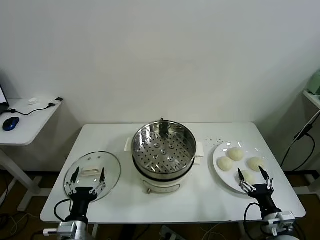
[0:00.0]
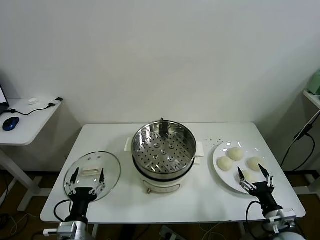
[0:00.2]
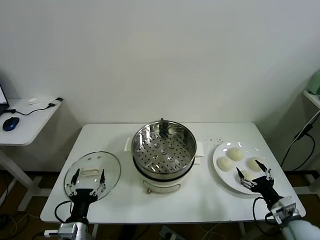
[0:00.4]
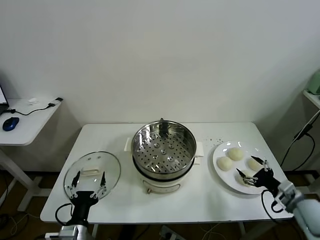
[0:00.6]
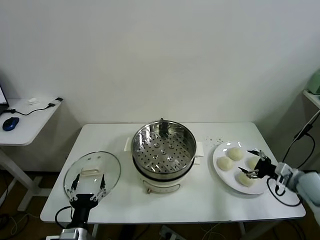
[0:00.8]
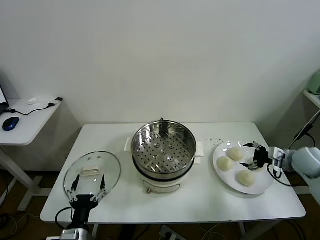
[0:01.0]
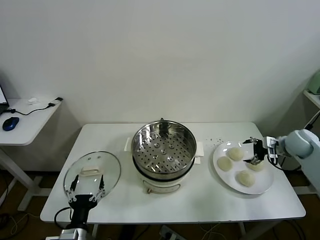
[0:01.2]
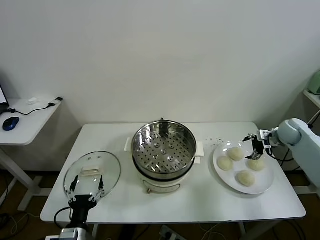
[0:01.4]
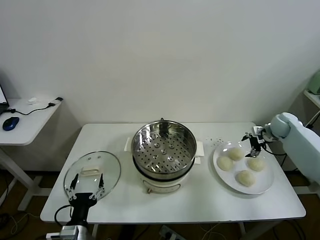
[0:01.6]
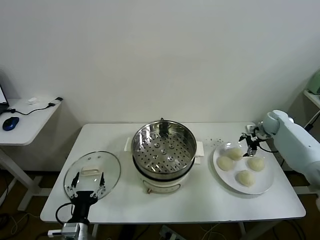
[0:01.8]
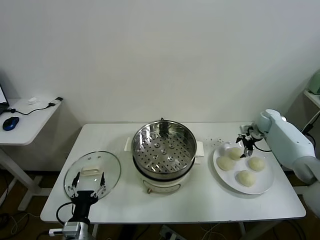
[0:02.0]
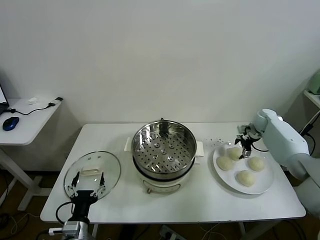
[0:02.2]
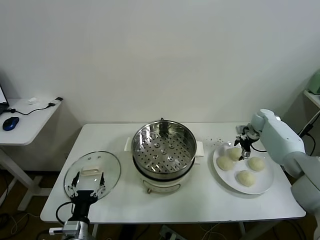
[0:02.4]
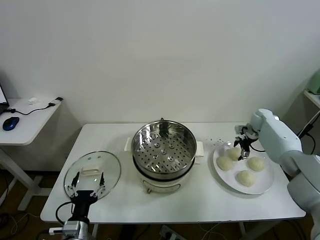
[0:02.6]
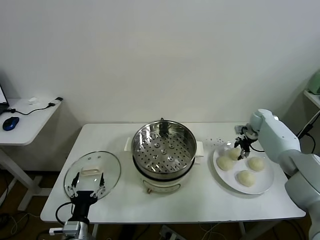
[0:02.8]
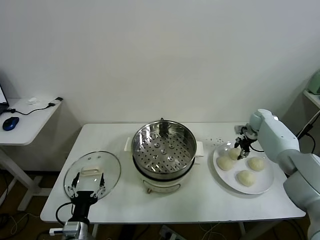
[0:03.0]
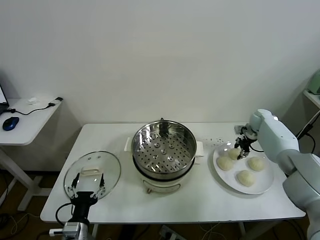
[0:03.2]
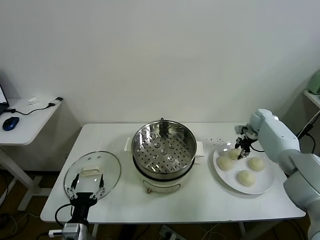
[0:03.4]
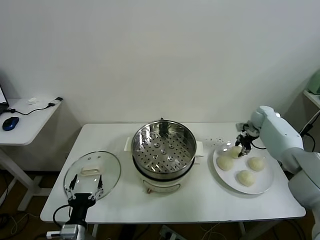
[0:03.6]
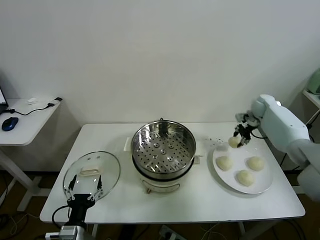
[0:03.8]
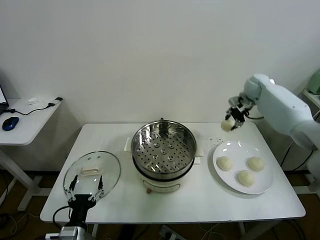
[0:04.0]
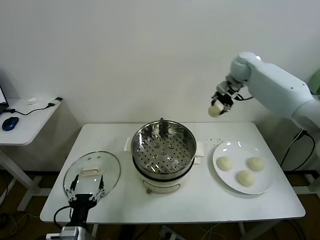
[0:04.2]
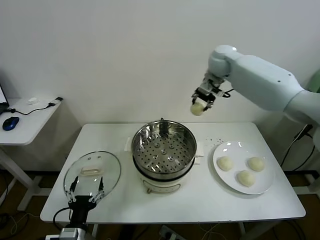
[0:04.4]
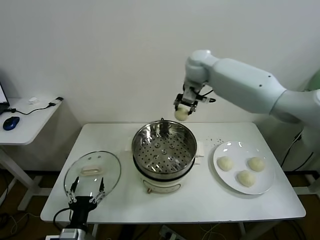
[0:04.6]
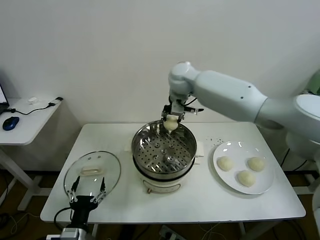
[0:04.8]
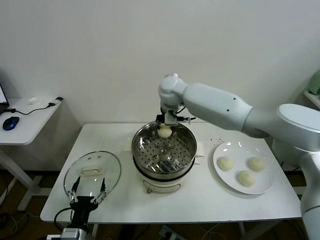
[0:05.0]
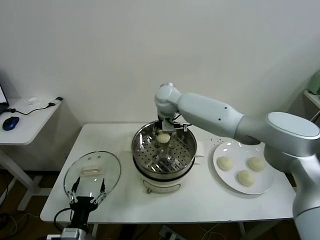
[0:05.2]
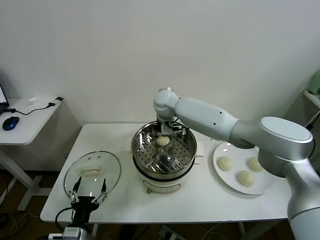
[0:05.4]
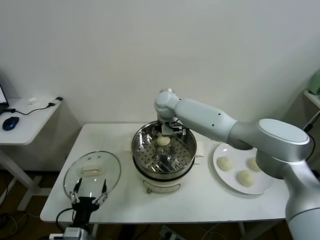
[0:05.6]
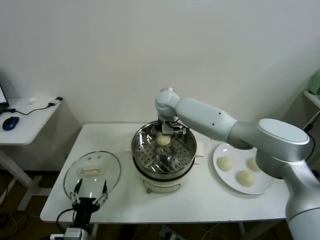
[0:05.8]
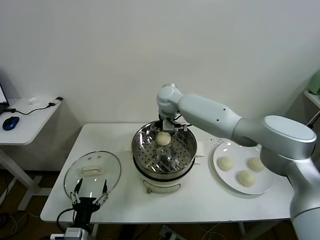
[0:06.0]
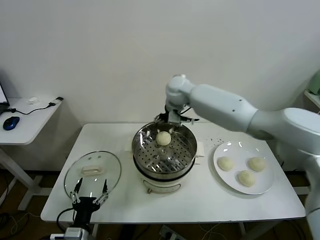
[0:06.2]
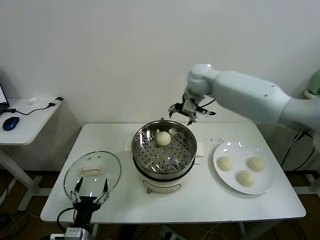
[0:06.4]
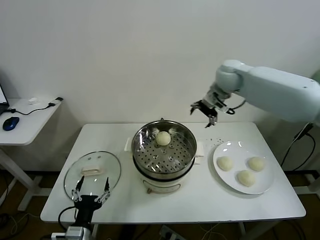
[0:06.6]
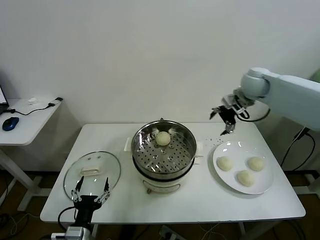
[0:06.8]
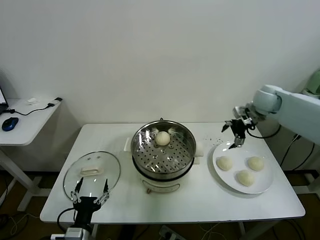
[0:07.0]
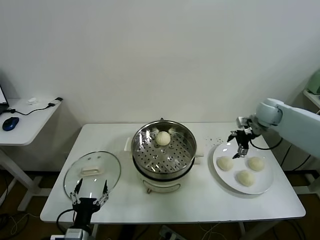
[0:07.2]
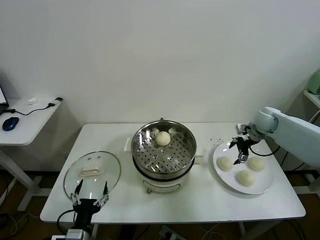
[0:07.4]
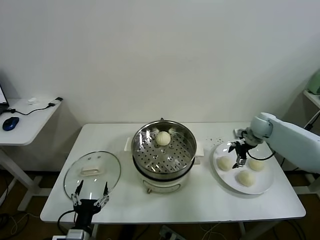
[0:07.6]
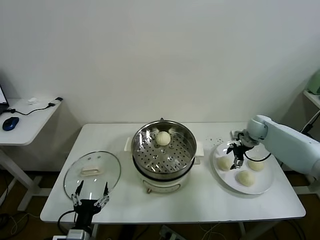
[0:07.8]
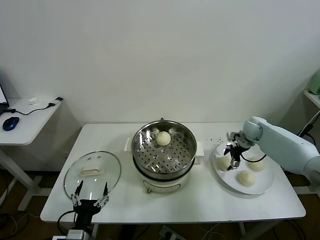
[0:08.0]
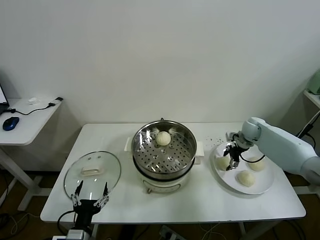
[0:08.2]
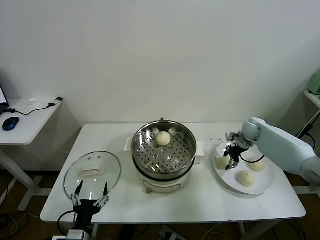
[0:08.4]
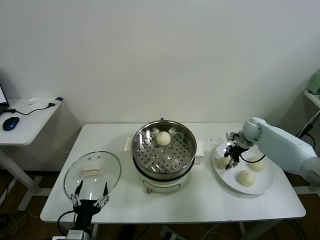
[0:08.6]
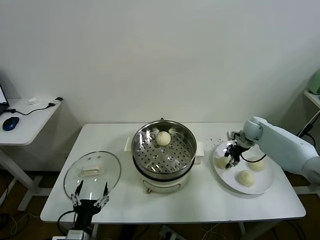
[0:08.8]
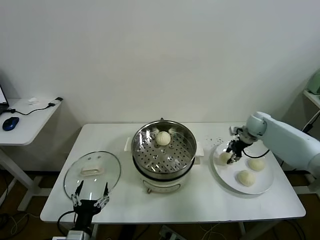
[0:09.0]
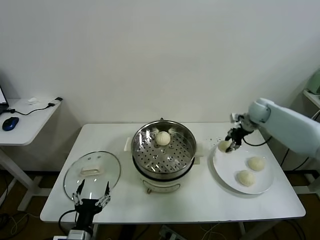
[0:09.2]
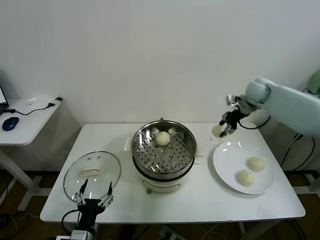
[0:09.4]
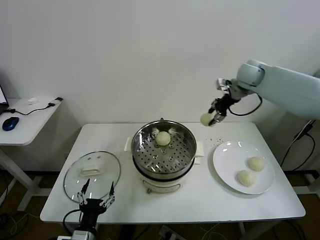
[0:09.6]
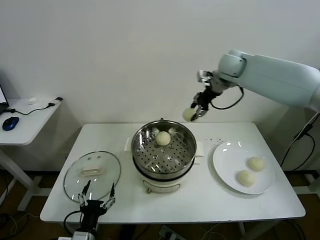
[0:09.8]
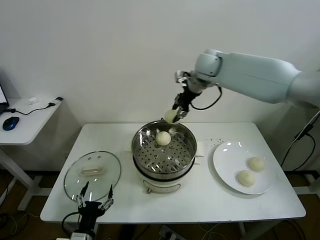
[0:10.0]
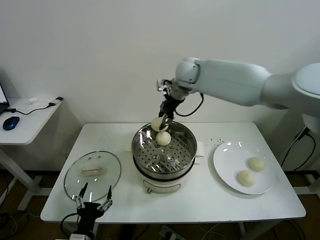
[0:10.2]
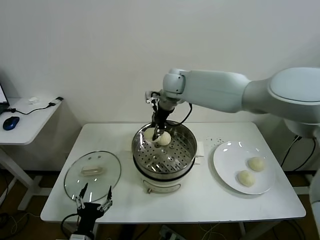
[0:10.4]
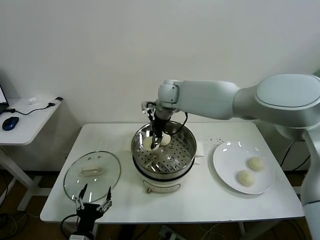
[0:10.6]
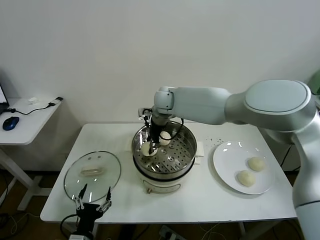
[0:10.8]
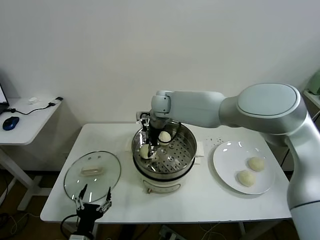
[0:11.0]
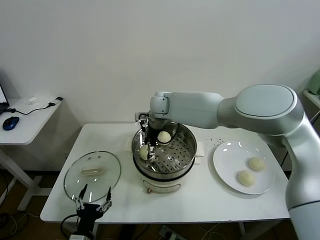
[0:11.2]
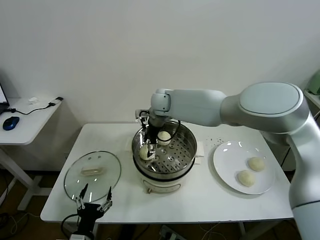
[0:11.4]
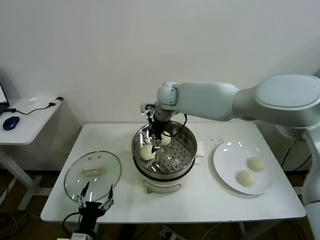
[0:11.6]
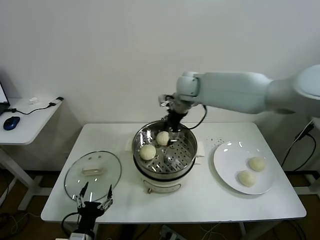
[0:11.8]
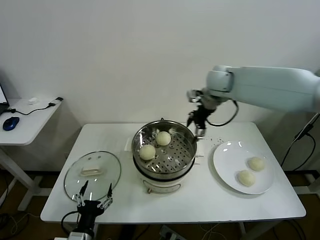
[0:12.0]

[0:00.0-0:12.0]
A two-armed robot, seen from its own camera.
Task of the whole recording: take steamed baozi put them in steamer.
Step, 0.0 to 2.8 s: Grasp the baozi in the plate with right gripper.
Step, 3.0 to 5.8 s: Place the baozi on the steamer with right gripper.
Step, 6.0 to 8.4 s: Grasp the baozi in the plate with right gripper.
Step, 8.6 to 11.4 s: Place the baozi on the steamer with right gripper.
1.6 to 3.0 s: The right gripper ends up about 5 cm from where it was, and closes up.
3.0 to 4.4 s: The right gripper is displaced to the left and upward by approximately 40 cm.
4.4 to 6.0 s: The right gripper heads to the left and downward, covering some 15 cm, and opens.
6.0 to 7.6 s: The right gripper is displaced to the right by approximately 35 cm.
7.6 to 9.0 s: The right gripper closes up.
9.0 to 10.4 s: The right gripper heads to the left and upward, covering about 40 cm.
10.4 to 12.0 s: The right gripper is displaced to the right by roughly 20 cm, and opens.

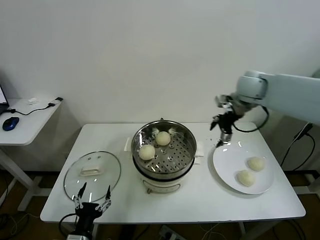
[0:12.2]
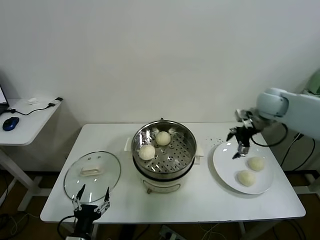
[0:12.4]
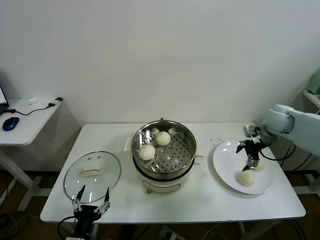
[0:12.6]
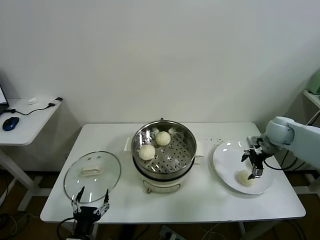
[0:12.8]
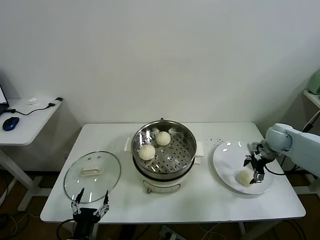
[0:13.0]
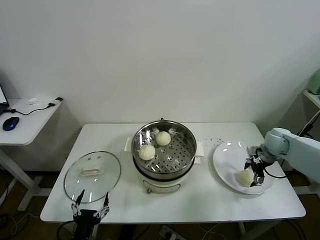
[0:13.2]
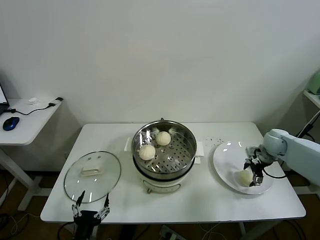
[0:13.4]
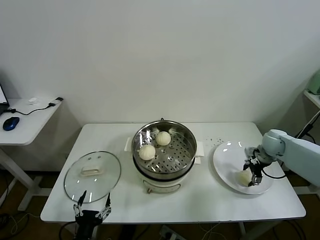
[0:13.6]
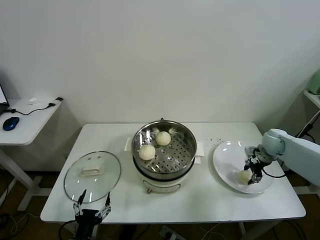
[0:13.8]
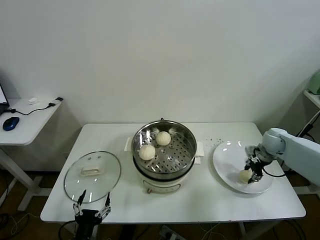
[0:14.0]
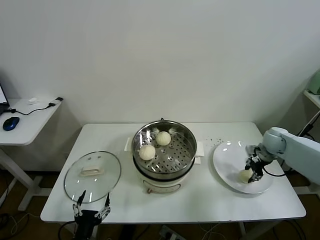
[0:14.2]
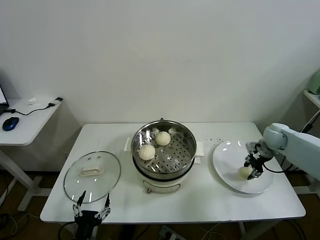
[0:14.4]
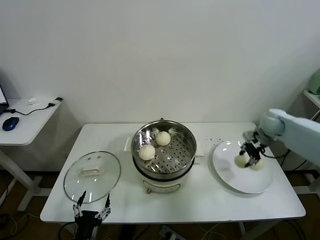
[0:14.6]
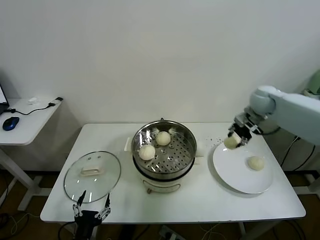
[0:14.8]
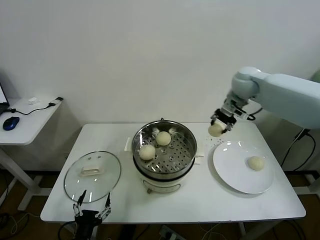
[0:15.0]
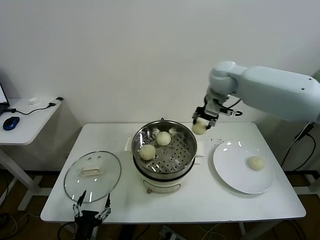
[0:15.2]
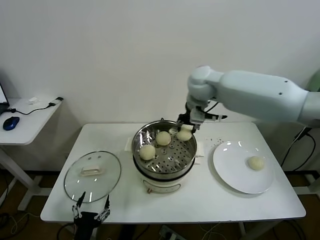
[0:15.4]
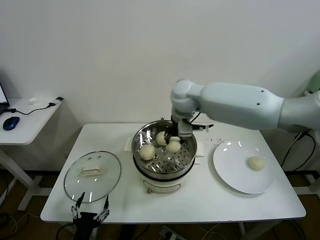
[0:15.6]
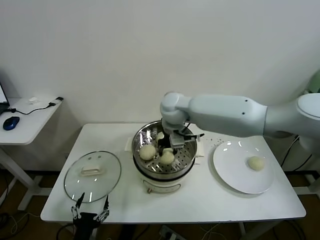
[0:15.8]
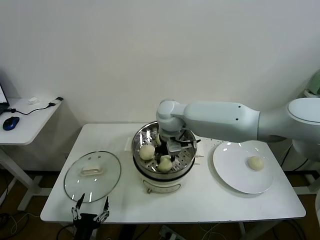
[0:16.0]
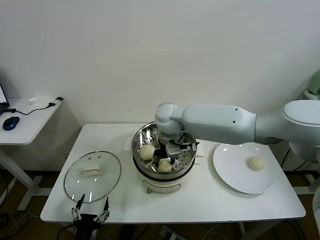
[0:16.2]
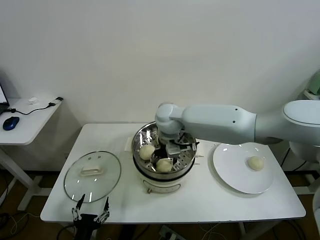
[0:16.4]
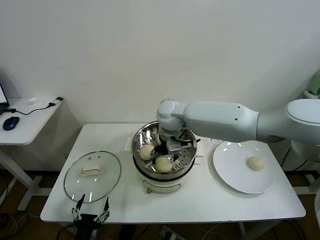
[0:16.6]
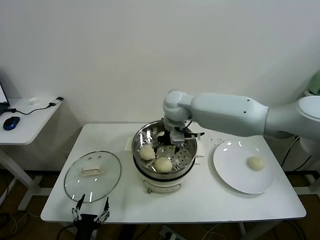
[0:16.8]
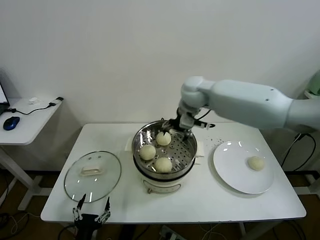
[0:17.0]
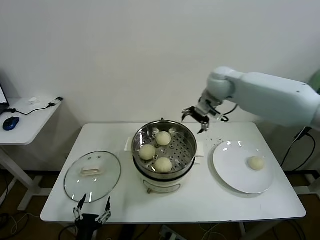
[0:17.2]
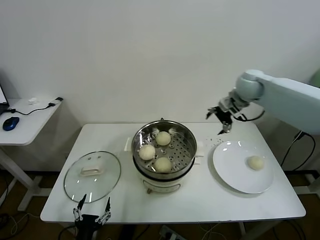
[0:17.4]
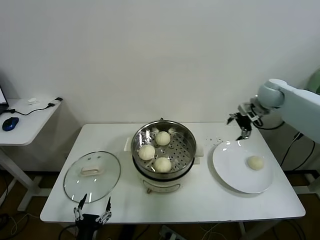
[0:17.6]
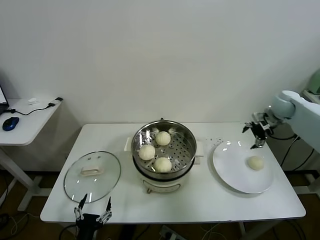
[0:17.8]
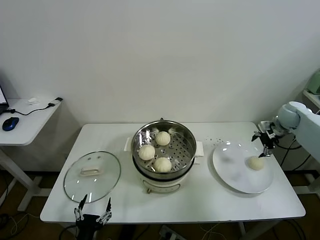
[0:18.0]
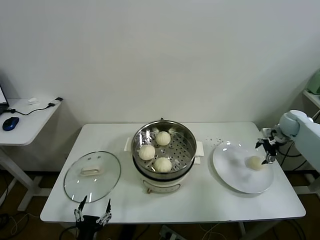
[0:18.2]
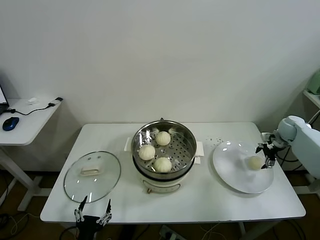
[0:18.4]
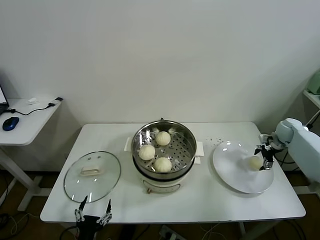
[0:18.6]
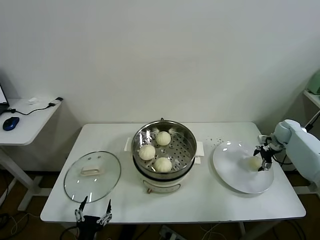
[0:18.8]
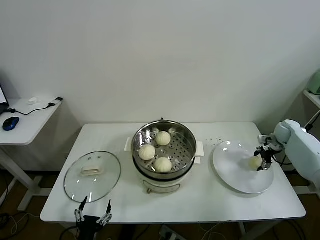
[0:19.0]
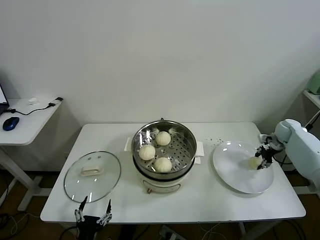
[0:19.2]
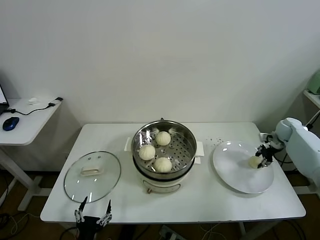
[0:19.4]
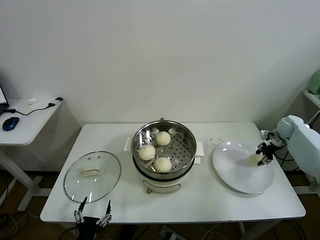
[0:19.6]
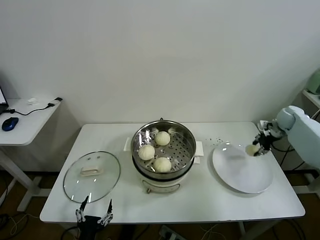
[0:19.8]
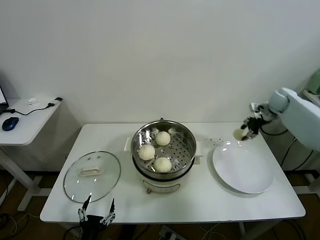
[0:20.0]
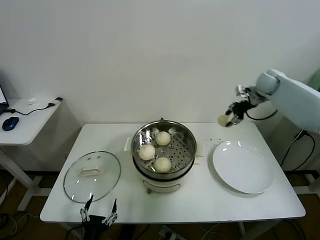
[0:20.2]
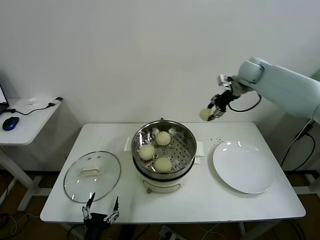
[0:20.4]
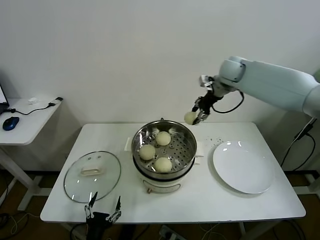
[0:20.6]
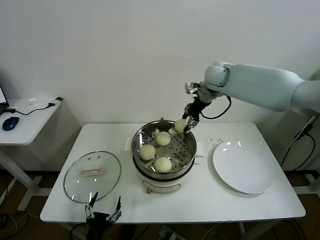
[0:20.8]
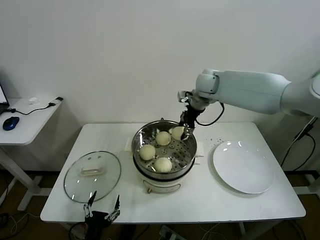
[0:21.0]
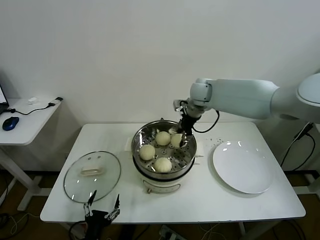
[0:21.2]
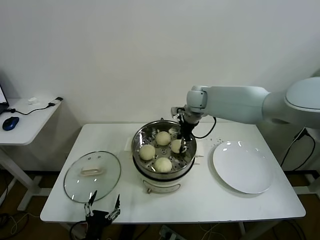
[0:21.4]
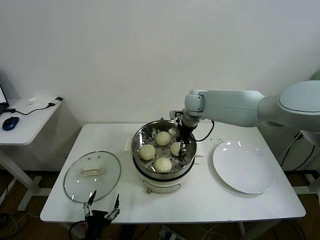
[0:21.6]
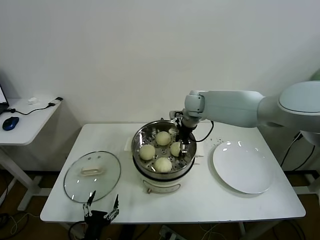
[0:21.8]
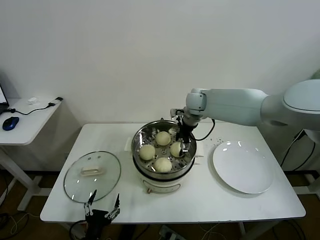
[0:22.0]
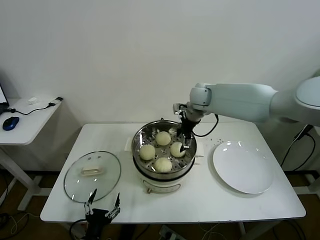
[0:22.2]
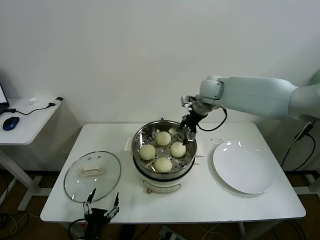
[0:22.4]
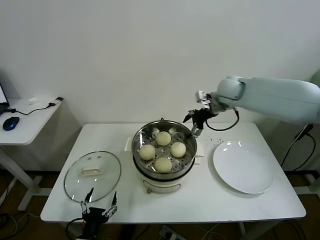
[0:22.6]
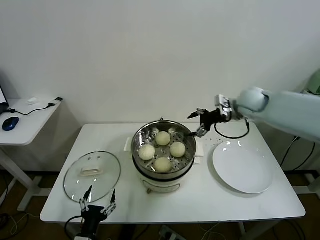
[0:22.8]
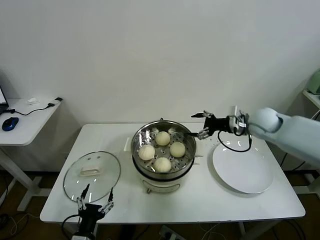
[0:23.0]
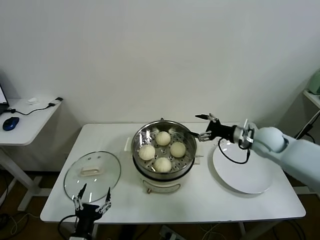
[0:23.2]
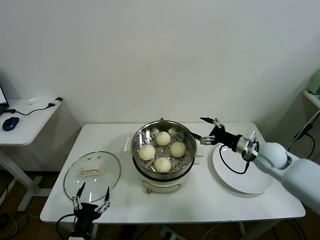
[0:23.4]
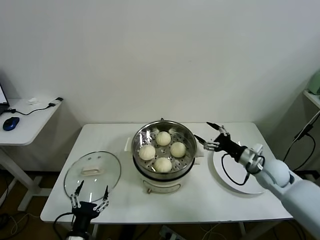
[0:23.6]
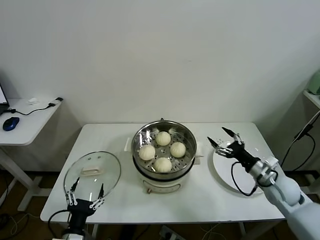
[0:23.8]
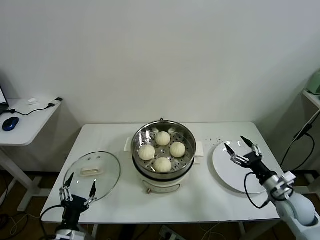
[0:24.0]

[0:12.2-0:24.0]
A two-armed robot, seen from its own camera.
Task of the whole recording: take steamed baozi put them in steamer.
Step, 12.2 to 13.8 s: Grasp the baozi in the plate with right gripper.
Step, 14.0 to 16.4 s: Place the baozi on the steamer with right gripper.
Step, 16.6 to 19.0 s: Grasp the baozi in the plate with right gripper.
Step, 19.2 to 21.8 s: Place the baozi on the steamer with right gripper.
12.2 to 13.6 s: The right gripper heads downward and to the right, covering about 25 cm.
13.6 to 15.2 s: The right gripper goes some 35 cm to the left and upward, and closes.
15.2 to 16.6 s: The right gripper travels to the left and downward by some 20 cm, and opens its fingers.
16.6 to 18.2 s: The right gripper is displaced to the right by about 50 cm.
18.2 to 19.6 s: The right gripper closes up.
19.6 to 21.0 s: The right gripper shifts some 40 cm to the left and upward.
21.0 to 22.6 s: The right gripper goes roughly 5 cm to the right, and opens up.
22.6 to 24.0 s: The right gripper moves backward, downward and to the right, approximately 40 cm, while the left gripper shifts by roughly 5 cm.
